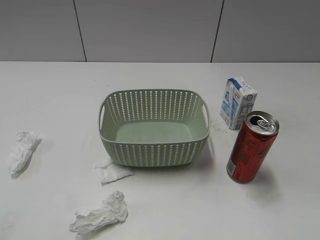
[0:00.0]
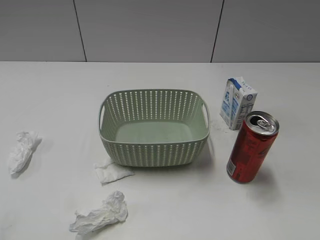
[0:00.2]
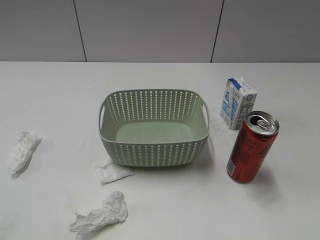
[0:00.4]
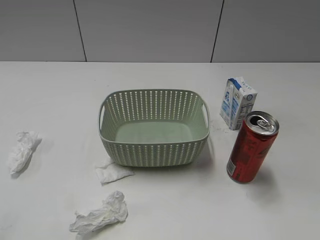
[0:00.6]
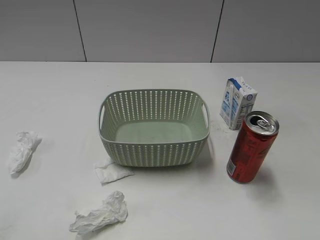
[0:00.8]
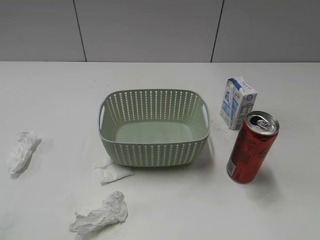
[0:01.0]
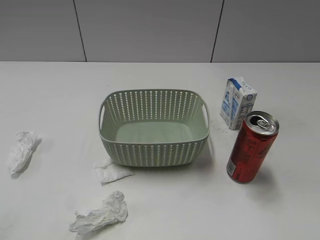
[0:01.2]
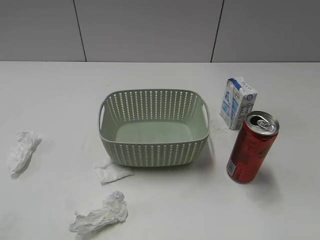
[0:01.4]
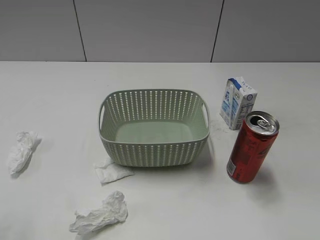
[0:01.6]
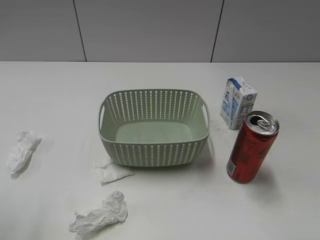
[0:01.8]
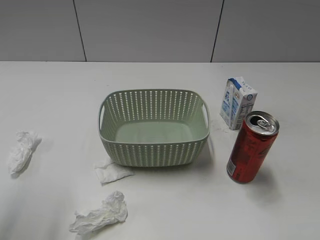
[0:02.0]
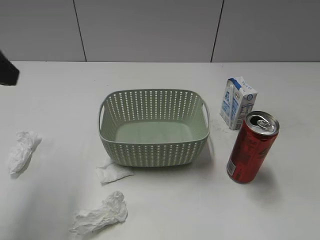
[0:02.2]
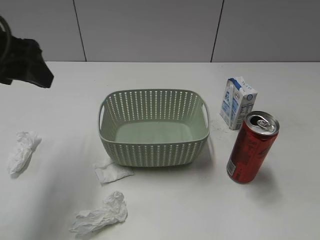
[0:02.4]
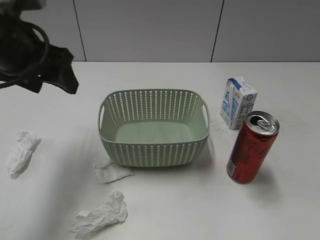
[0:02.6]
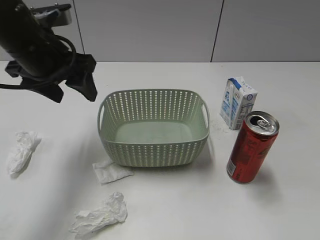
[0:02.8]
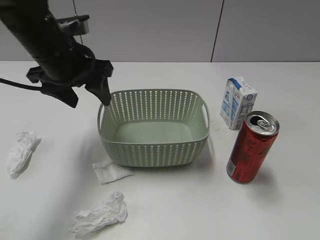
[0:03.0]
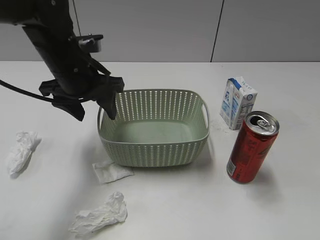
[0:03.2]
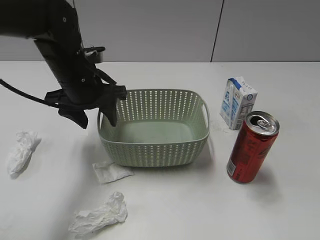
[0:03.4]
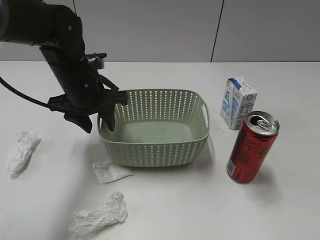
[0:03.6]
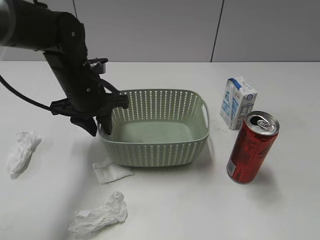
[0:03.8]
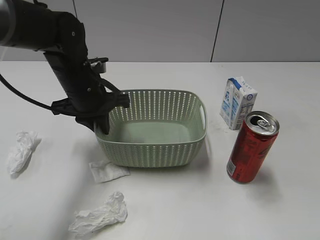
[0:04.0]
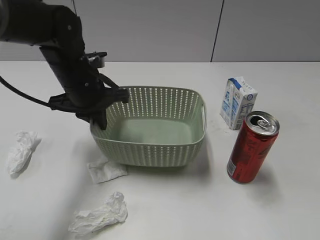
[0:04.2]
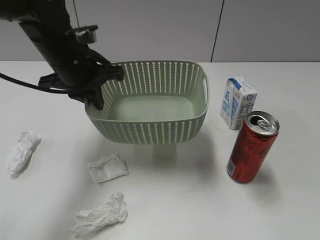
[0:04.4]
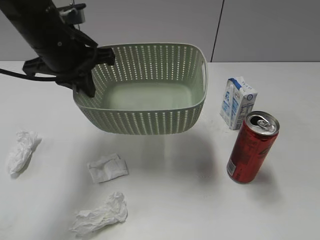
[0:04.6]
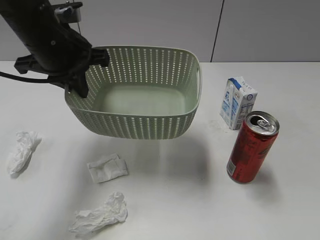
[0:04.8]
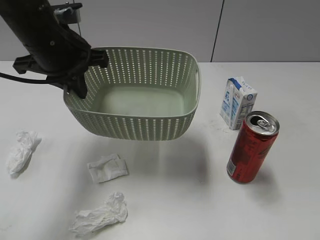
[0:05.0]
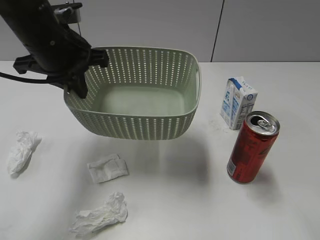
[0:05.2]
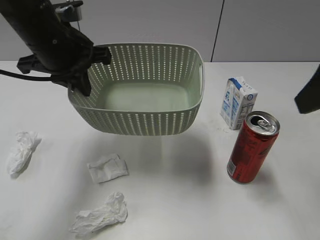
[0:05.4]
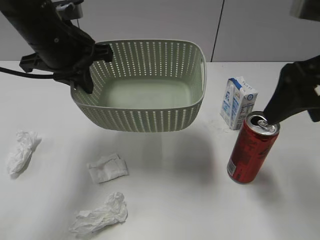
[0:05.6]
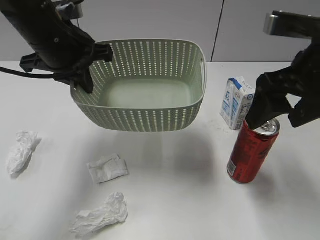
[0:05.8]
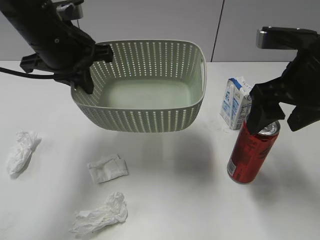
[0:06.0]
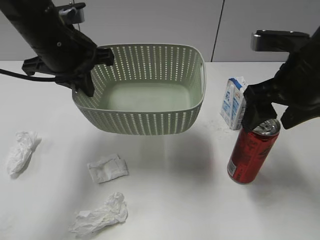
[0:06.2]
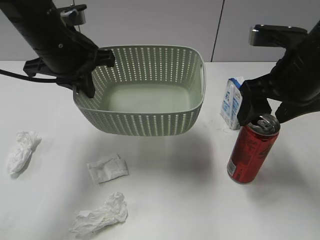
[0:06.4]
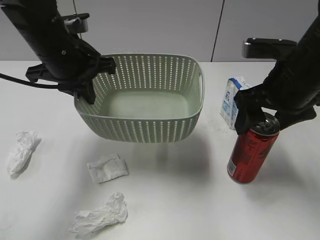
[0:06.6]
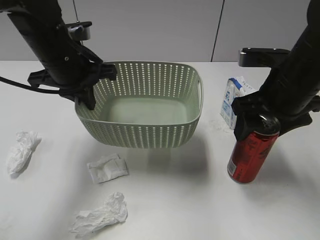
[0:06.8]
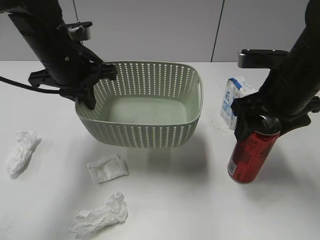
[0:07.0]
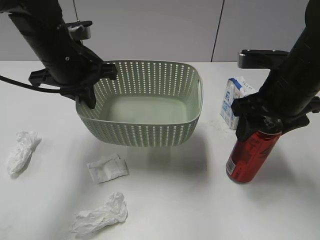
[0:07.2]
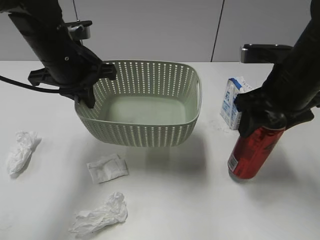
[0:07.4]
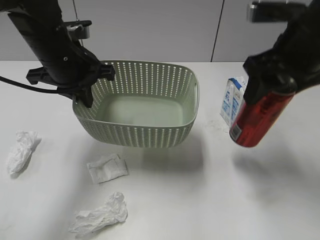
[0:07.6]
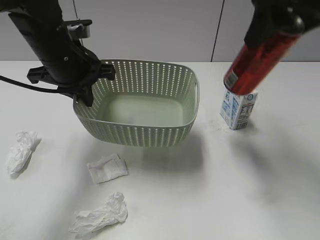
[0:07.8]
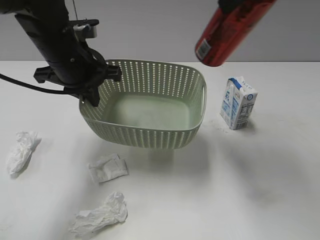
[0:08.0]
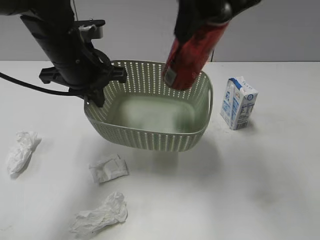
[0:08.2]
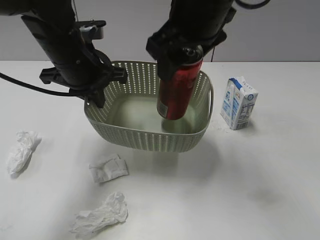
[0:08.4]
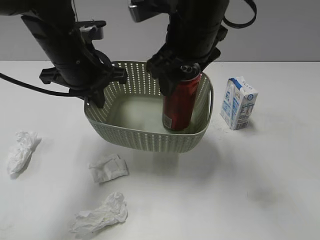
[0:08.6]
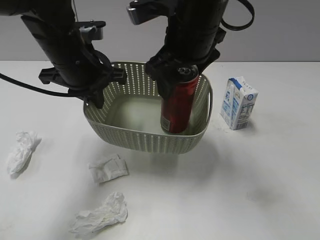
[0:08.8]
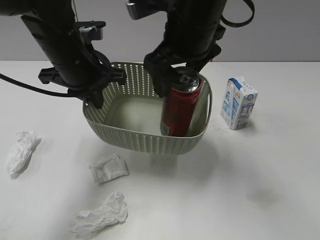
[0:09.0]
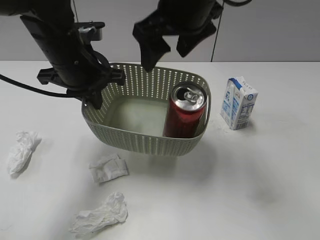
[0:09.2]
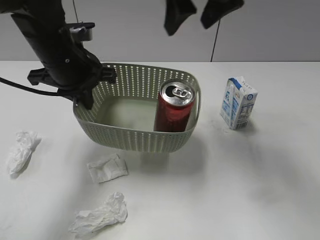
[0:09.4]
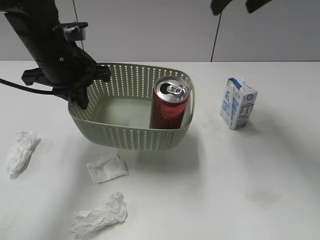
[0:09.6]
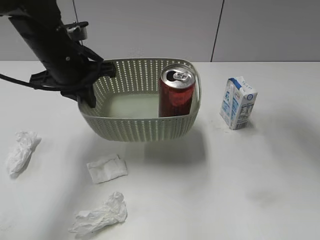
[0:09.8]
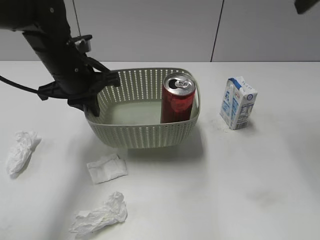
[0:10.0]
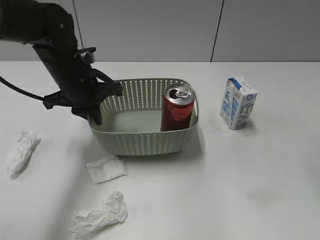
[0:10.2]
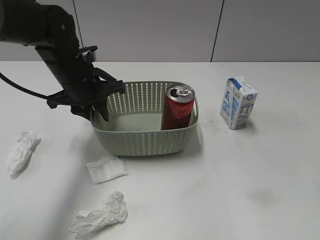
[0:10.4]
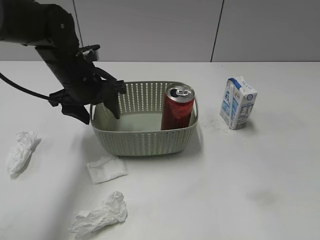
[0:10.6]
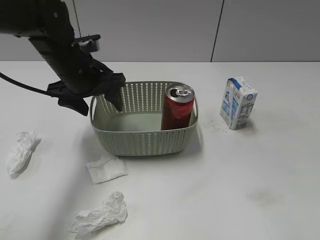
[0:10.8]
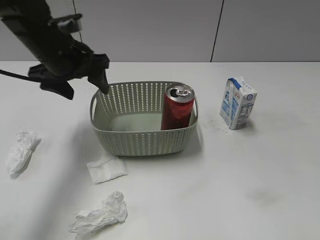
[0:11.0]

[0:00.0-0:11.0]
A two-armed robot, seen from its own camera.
Step, 2.2 to 4.0 s: Grasp the basket with left gripper.
Step, 4.2 to 5.2 s: Lift the basket with left gripper.
Step, 5.4 to 7.0 s: Grasp the cola can with right gripper.
Step, 7.2 to 9.2 s: Place the cola can in the basket with right gripper.
Step, 9.4 to 10.8 s: Place the basket on the table with left gripper.
1.6 to 3.2 s: The left gripper shifts approximately 35 cm forward, to the right and downward.
3.2 to 4.8 s: The right gripper goes approximately 10 cm forward and upward, while the left gripper moves upward, roughly 5 cm, and closes its fingers.
4.8 to 6.2 s: The right gripper is displaced forward, downward and to the left by approximately 25 cm.
6.2 to 7.8 s: The right gripper travels upward by approximately 15 cm, and closes.
7.8 to 9.4 s: The right gripper is displaced forward by roughly 5 cm, goes to the left and returns, approximately 10 cm each way, and opens its fingers.
9.4 to 11.0 s: The left gripper ends up some 5 cm from where it was, and opens up; the right gripper shifts roughly 35 cm backward and to the right.

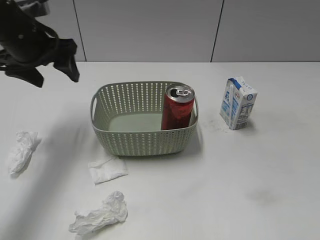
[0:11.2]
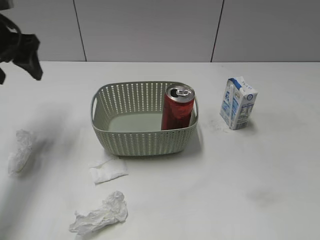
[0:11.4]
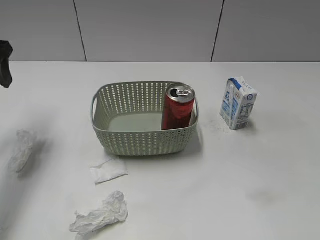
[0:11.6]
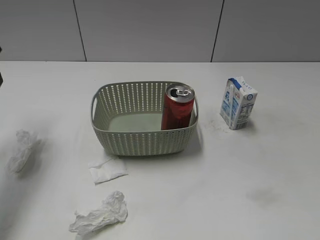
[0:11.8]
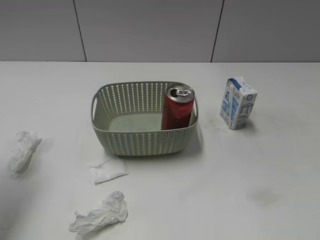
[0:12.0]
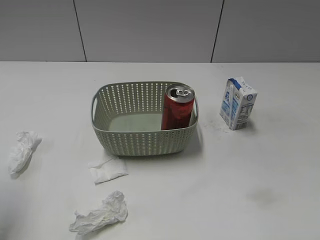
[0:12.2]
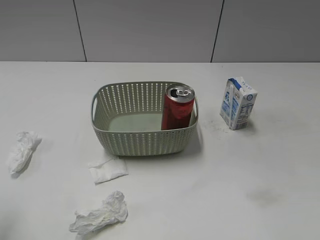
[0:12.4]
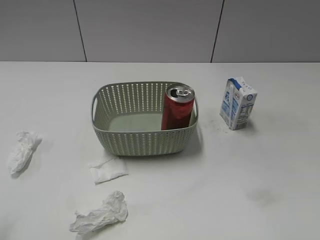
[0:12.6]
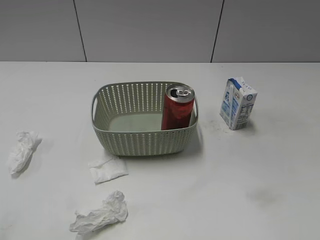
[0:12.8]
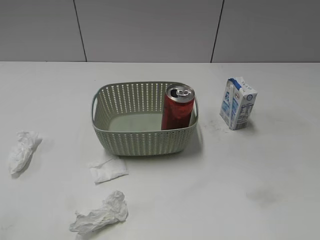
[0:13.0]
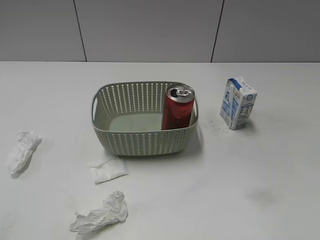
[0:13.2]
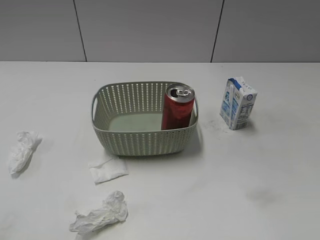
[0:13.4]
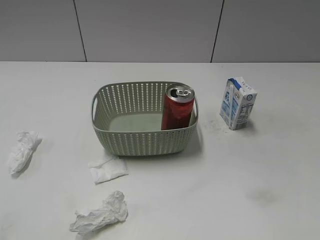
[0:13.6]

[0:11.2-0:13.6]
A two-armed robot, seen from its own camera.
11.2 to 12.4 s: The left gripper moves backward, some 25 cm.

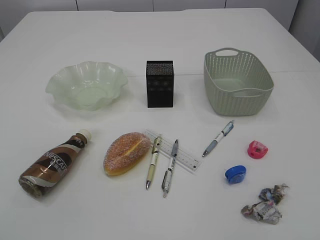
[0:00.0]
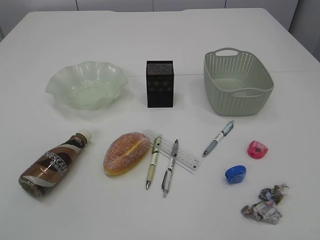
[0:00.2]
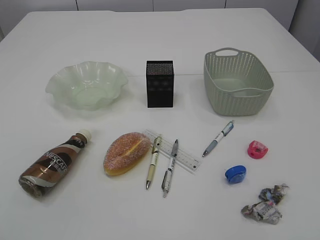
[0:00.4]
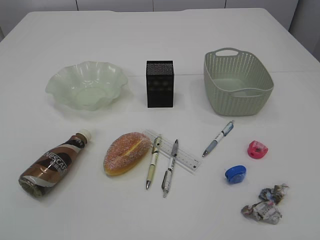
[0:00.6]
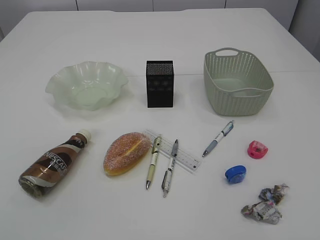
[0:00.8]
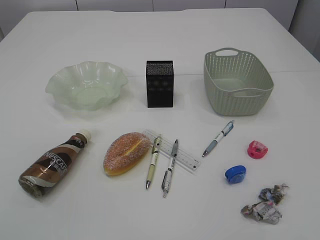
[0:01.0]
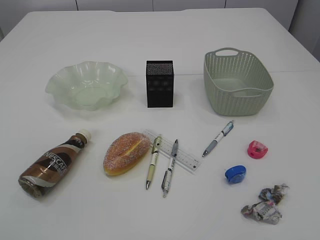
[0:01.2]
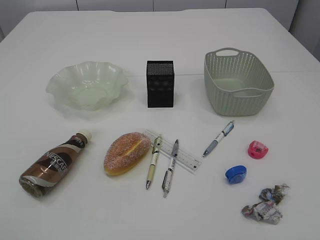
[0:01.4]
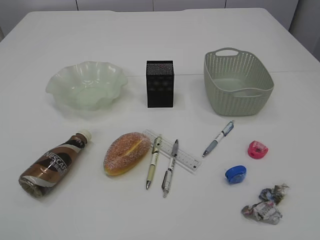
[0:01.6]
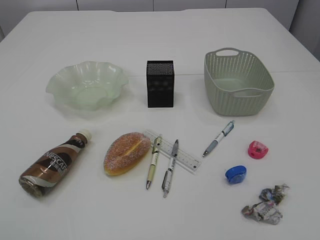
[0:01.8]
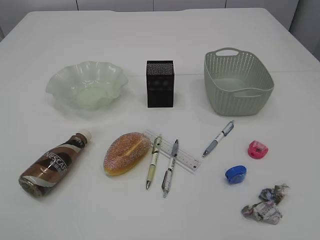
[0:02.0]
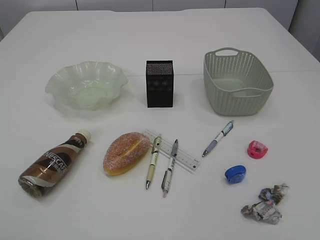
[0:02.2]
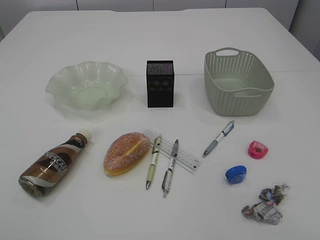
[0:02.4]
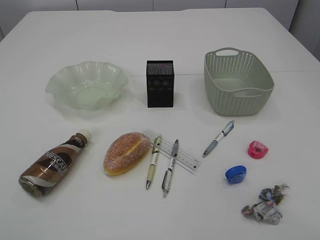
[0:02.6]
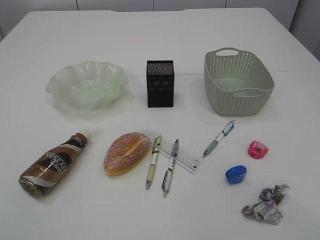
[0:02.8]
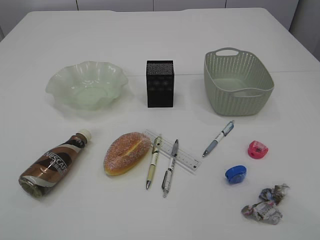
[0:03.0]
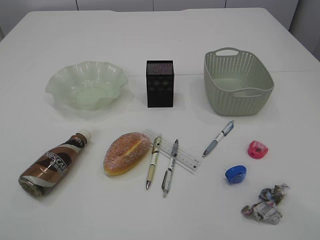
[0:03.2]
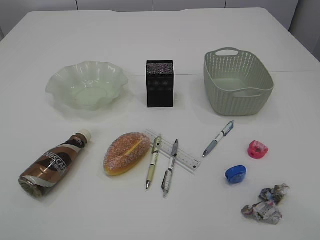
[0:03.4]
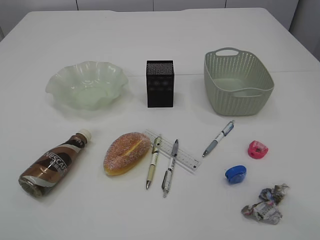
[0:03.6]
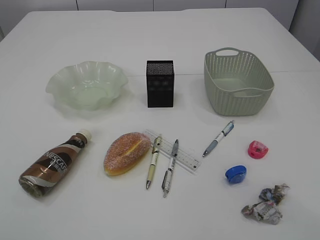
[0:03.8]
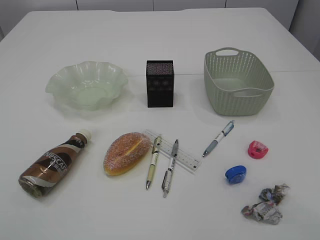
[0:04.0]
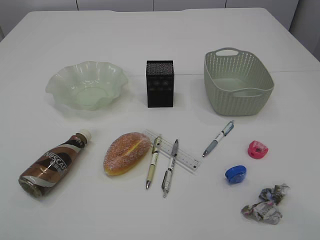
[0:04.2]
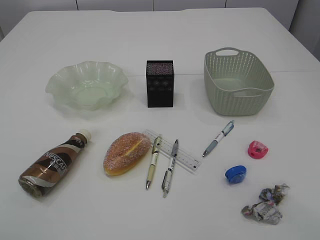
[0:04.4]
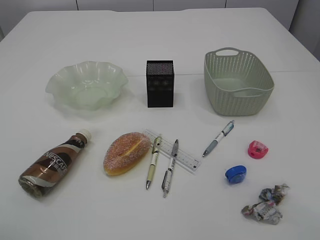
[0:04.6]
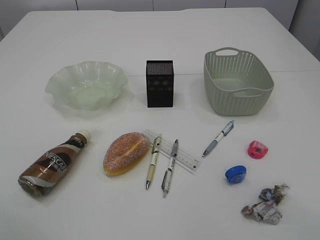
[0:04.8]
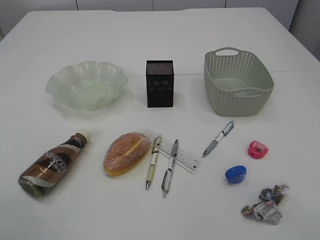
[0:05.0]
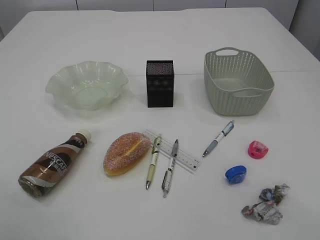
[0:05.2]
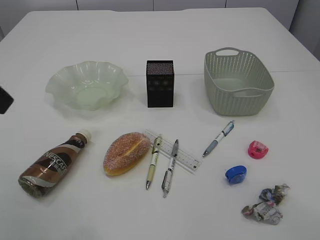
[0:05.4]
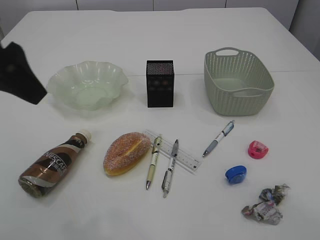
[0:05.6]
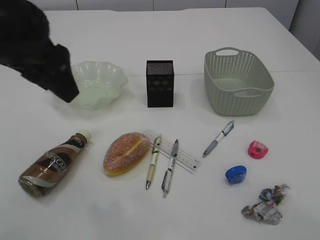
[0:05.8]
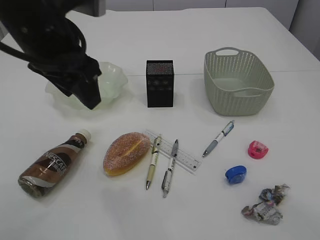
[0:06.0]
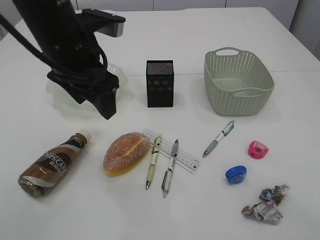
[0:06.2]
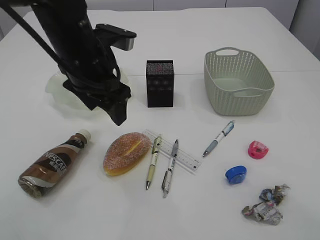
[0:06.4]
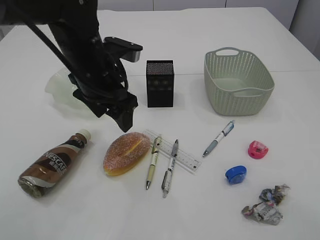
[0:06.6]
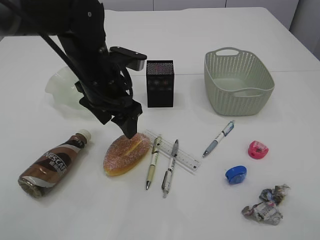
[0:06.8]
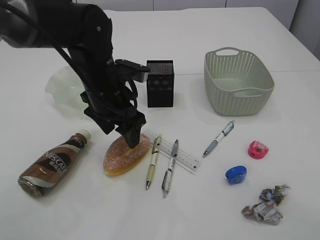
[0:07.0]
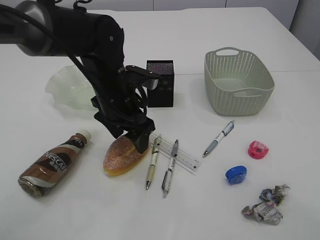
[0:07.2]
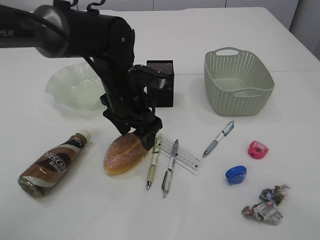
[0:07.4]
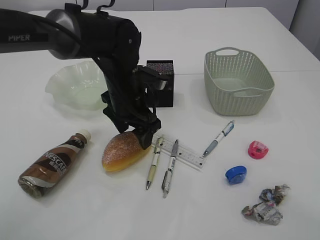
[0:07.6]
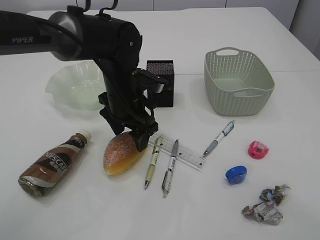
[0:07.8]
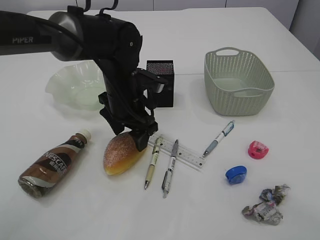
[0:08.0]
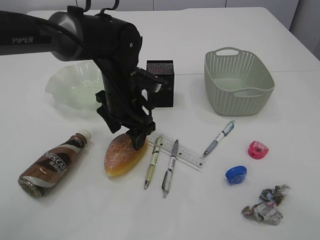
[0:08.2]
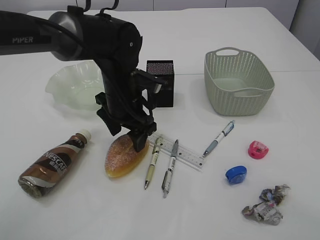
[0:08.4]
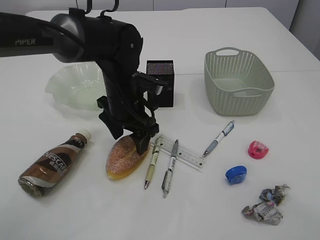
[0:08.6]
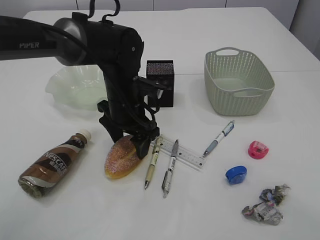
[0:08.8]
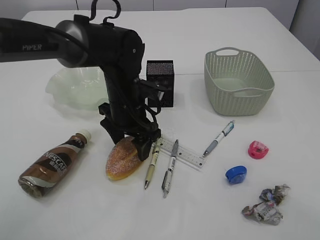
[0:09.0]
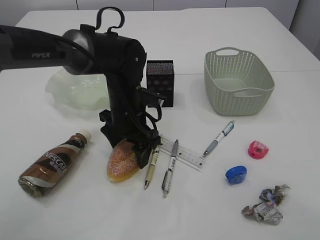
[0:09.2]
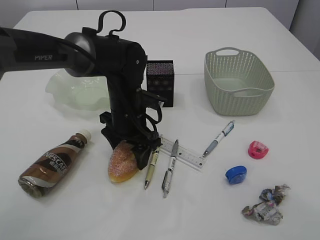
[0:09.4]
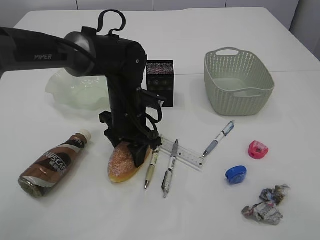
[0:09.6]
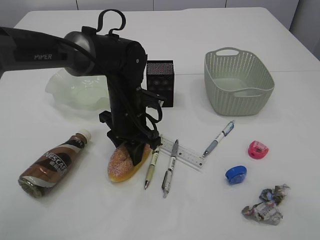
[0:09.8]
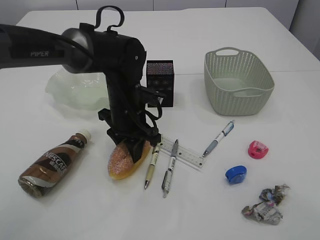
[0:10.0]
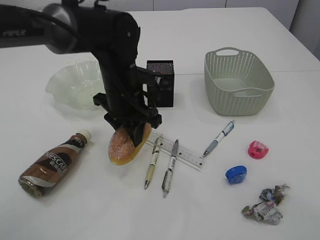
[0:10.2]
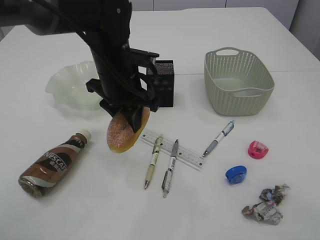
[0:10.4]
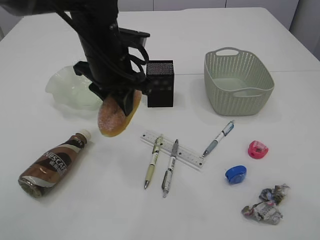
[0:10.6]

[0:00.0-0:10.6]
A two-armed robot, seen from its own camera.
4.6 to 6.0 s: The left gripper goes about 20 cm forward, to the right and downward.
6.0 to 7.6 s: The left gripper goes approximately 20 cm downward, forward and to the right.
7.6 to 9.0 s: The grippers move only a little.
9.0 to 10.6 s: The left gripper heads upward, covering roughly 10 cm, and closes.
